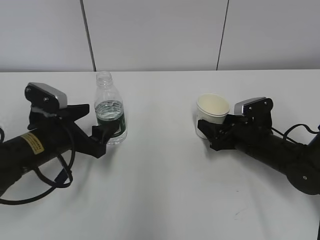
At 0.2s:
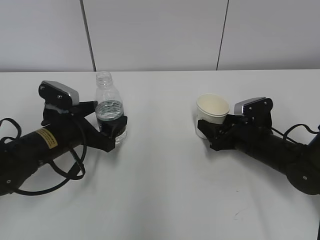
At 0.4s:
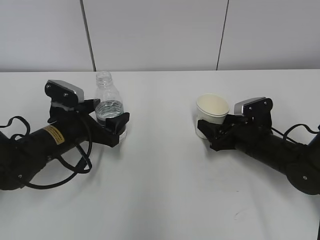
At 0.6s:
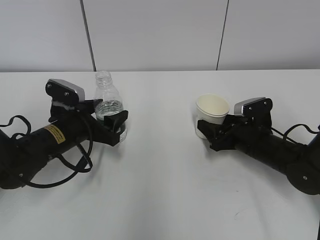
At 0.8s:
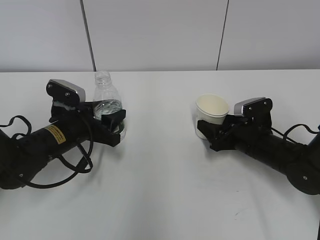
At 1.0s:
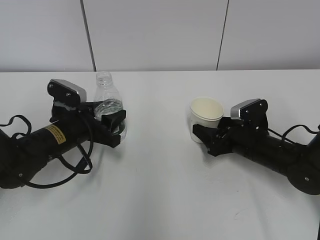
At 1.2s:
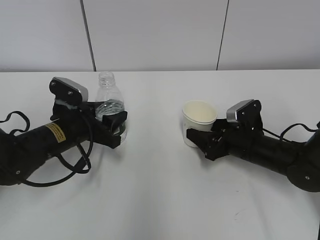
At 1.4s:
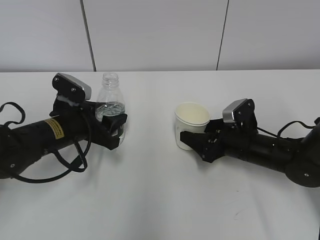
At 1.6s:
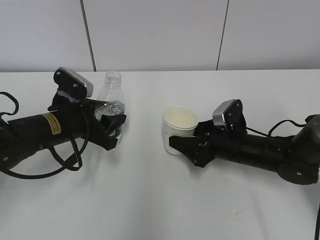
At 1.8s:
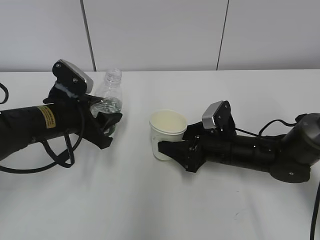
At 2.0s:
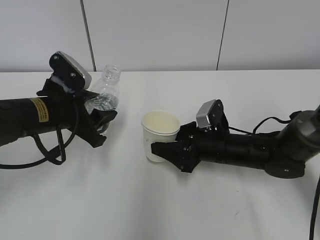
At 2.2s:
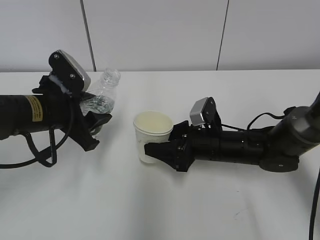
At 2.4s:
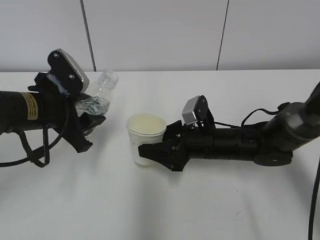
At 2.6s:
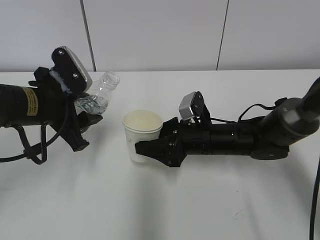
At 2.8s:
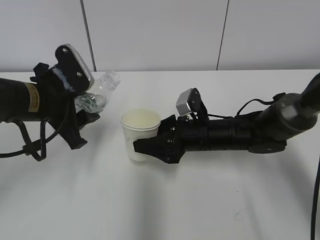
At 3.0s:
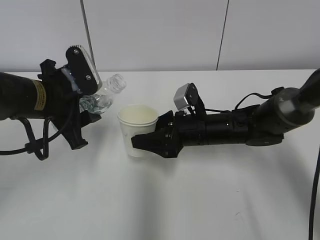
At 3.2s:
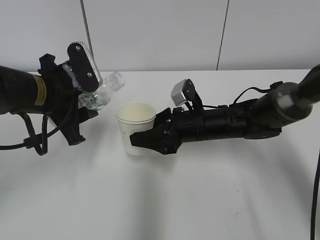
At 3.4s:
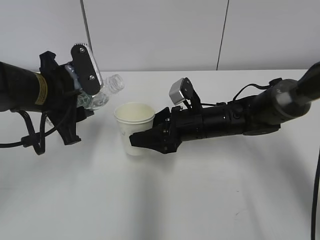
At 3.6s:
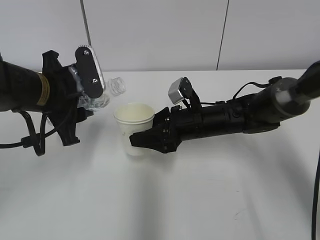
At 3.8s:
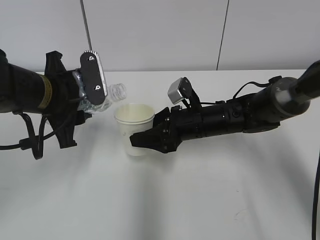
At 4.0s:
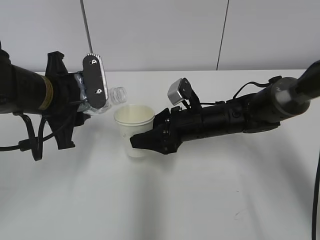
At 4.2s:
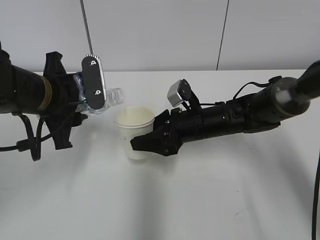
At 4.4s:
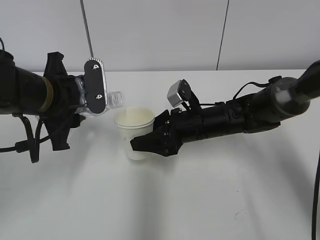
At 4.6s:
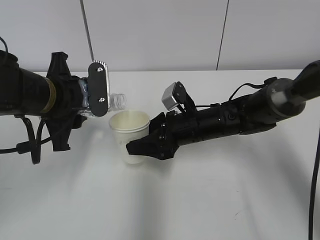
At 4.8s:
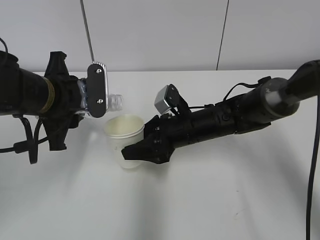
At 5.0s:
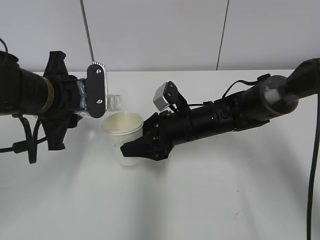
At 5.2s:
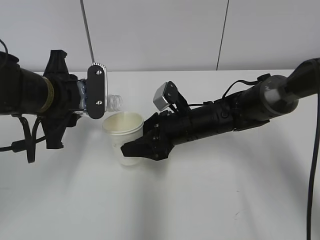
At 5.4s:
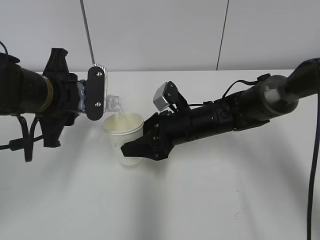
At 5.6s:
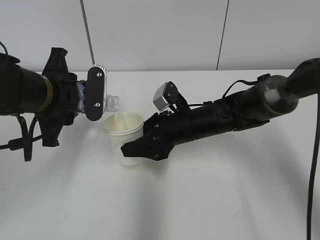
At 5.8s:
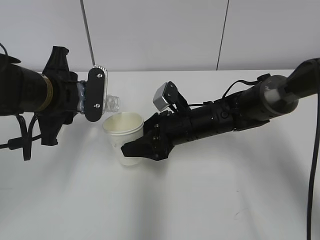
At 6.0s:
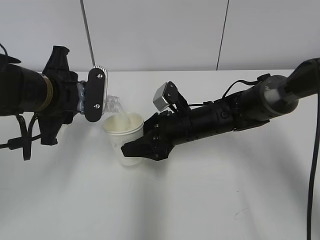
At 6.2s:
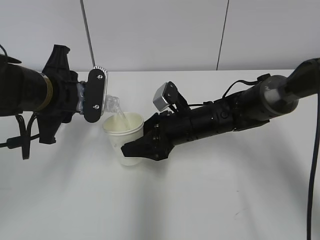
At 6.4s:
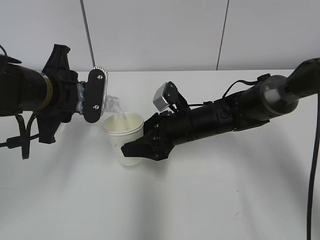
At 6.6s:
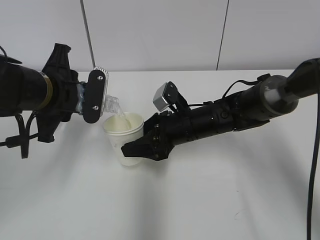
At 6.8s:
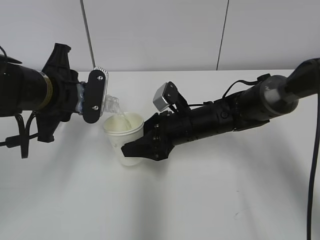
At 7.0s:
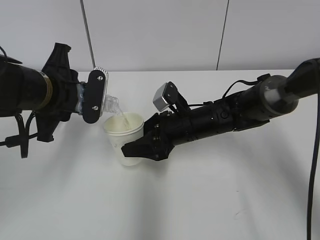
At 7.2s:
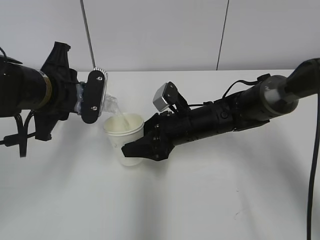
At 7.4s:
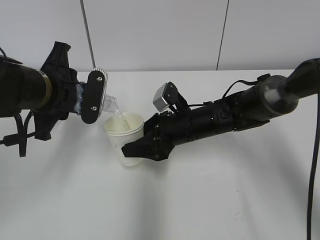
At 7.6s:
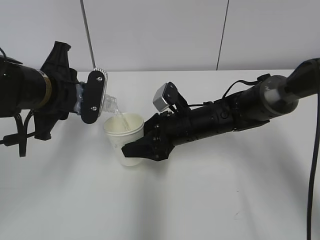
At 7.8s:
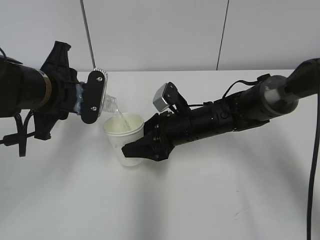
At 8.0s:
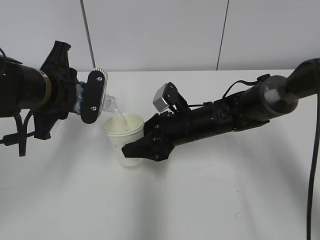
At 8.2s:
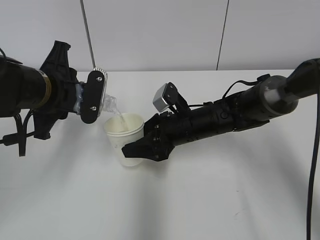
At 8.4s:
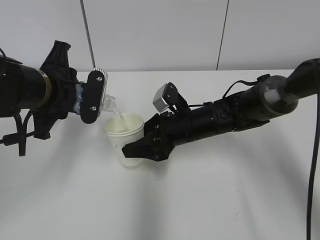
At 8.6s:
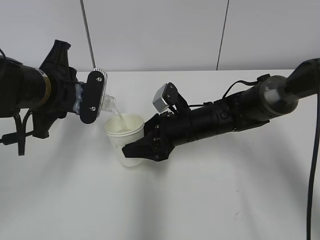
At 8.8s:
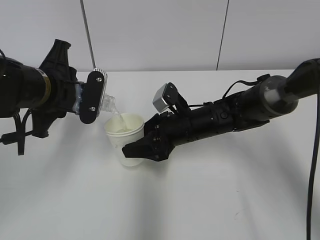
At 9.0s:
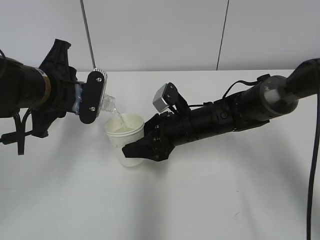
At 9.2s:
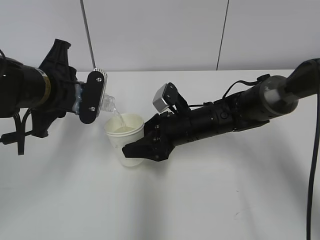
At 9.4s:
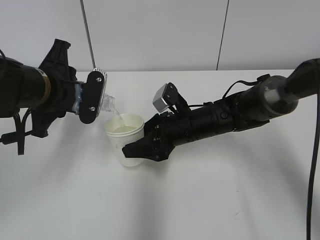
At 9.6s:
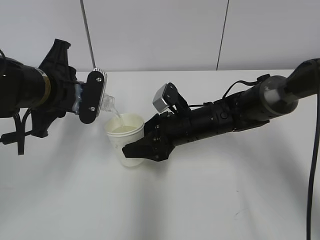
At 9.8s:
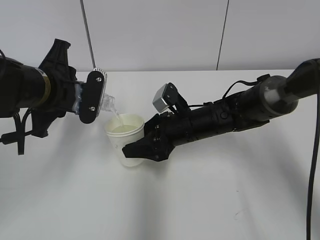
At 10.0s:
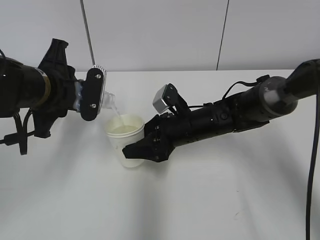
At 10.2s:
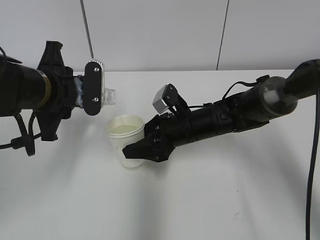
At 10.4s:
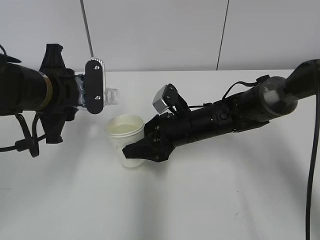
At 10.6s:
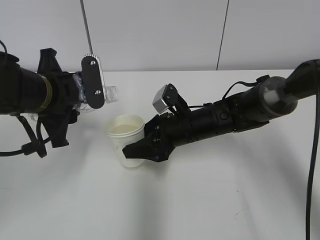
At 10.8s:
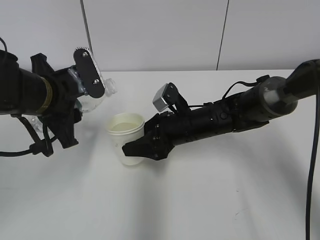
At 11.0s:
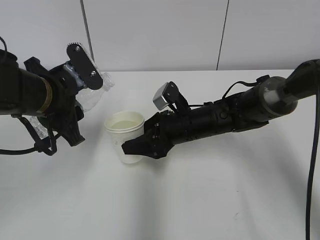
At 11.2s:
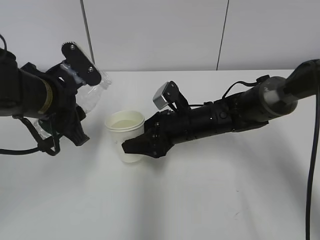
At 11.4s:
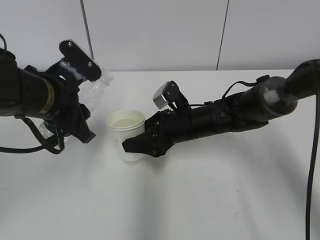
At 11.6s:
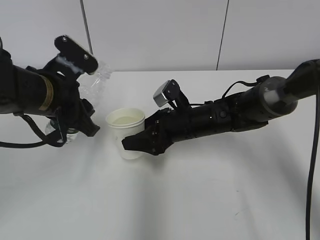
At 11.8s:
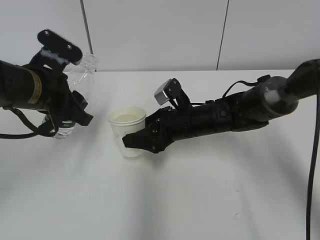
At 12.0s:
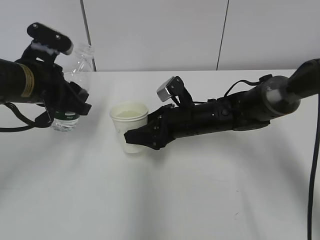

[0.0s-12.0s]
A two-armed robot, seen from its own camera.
Step, 0.0s to 2.6s: Lift the paper cup with the right hand.
Step, 2.8s to 7.0s: Fill water with the right hand.
Step, 2.8s to 7.0s: Pour water with the left hand.
0.0s to 1.6s: The left gripper closes.
1.6s to 3.0s: The left gripper goes approximately 5 cm upward. Meanwhile the right gripper shifts approximately 5 cm to the left.
4.4s to 6.0s: There are only small adjustments of the grippers.
6.0s to 7.6s: There are only small adjustments of the grippers.
7.6s to 9.0s: Both grippers stay about where they are.
9.0s to 10.4s: The grippers move only a little.

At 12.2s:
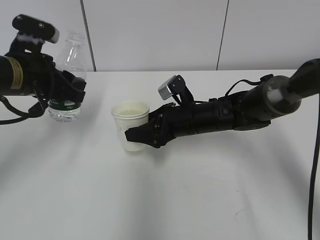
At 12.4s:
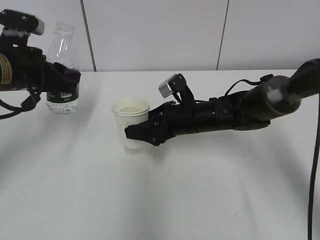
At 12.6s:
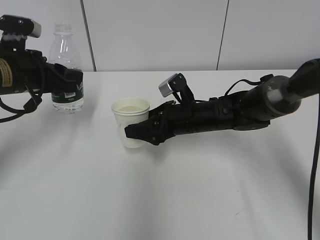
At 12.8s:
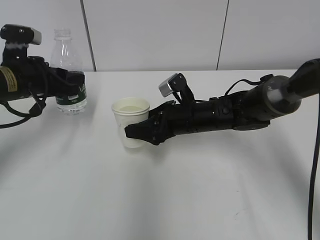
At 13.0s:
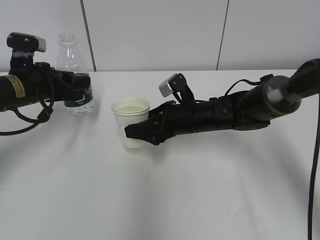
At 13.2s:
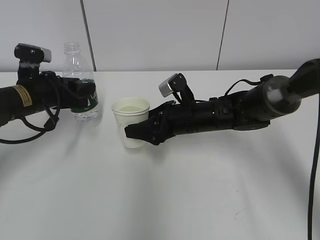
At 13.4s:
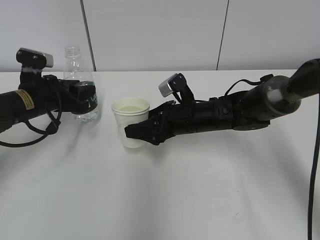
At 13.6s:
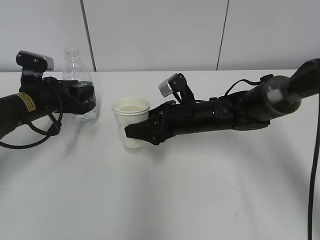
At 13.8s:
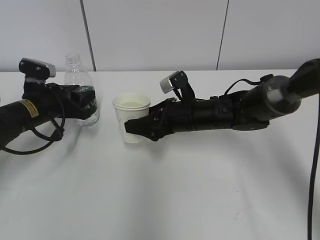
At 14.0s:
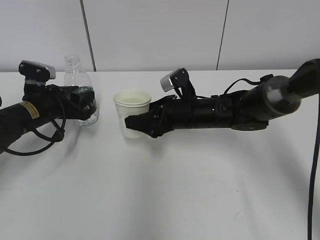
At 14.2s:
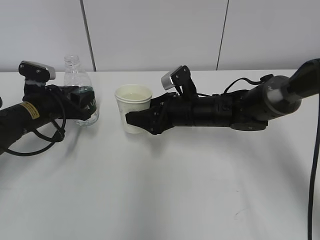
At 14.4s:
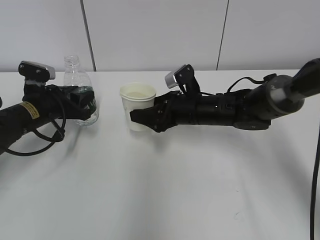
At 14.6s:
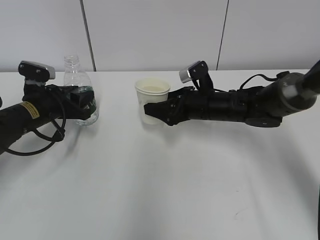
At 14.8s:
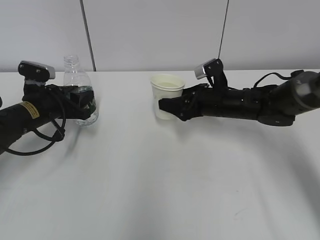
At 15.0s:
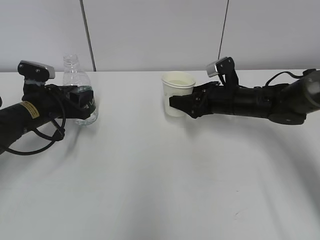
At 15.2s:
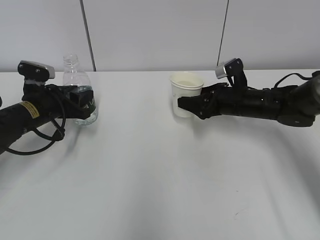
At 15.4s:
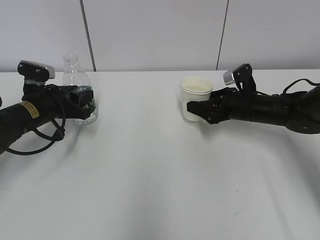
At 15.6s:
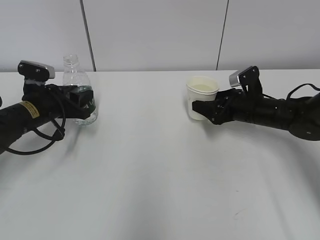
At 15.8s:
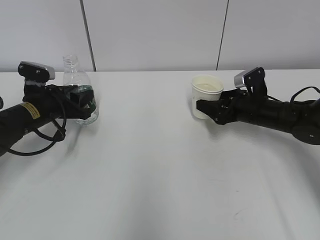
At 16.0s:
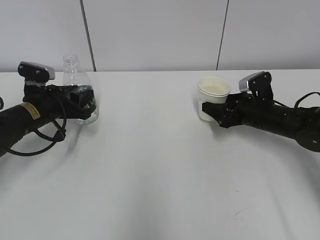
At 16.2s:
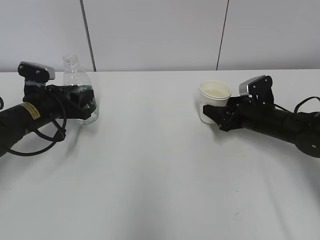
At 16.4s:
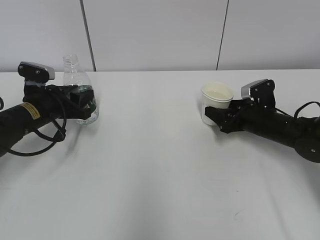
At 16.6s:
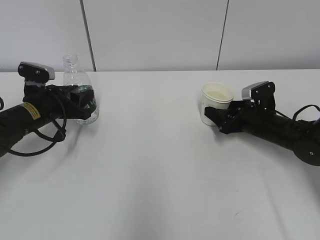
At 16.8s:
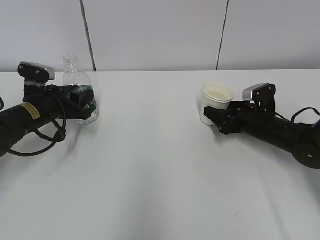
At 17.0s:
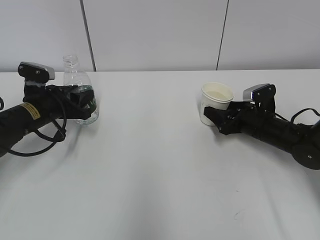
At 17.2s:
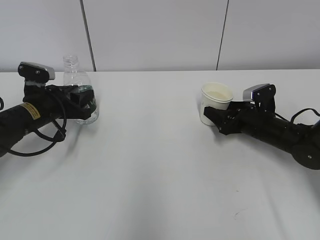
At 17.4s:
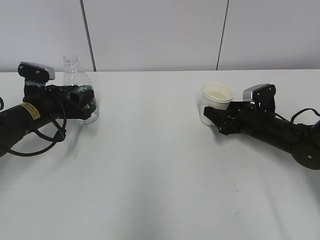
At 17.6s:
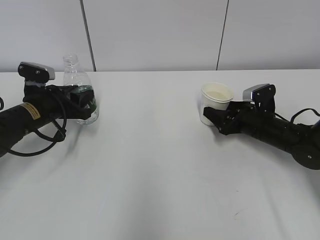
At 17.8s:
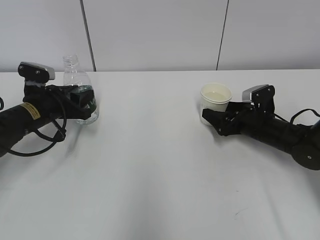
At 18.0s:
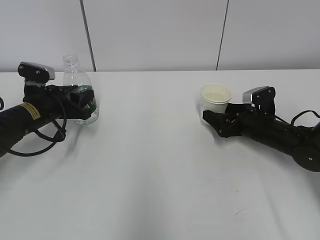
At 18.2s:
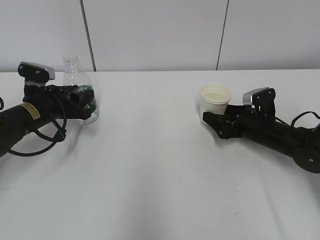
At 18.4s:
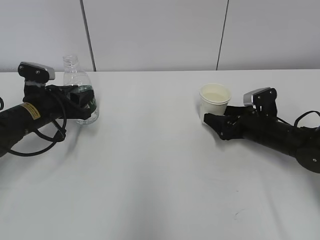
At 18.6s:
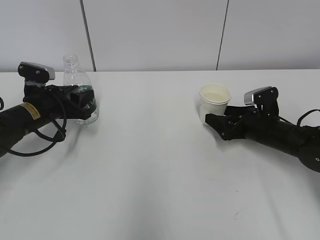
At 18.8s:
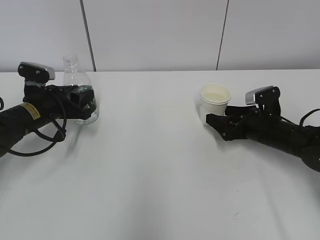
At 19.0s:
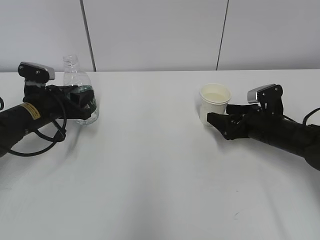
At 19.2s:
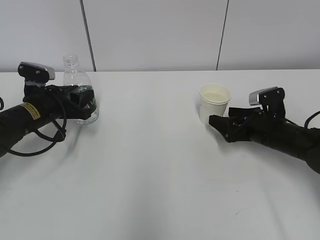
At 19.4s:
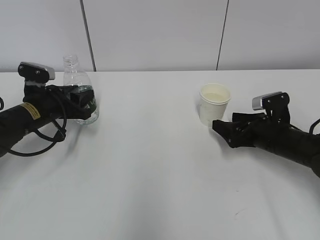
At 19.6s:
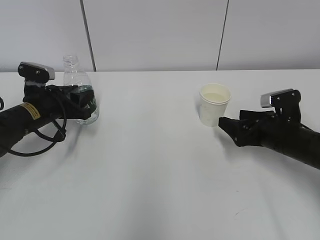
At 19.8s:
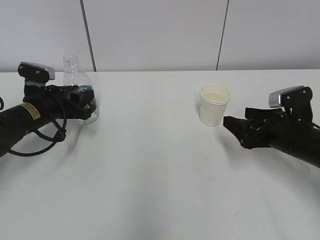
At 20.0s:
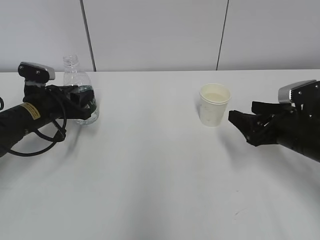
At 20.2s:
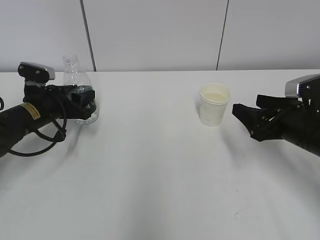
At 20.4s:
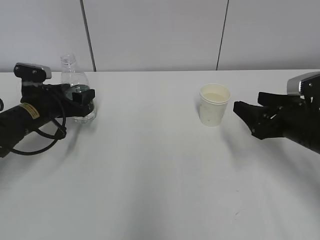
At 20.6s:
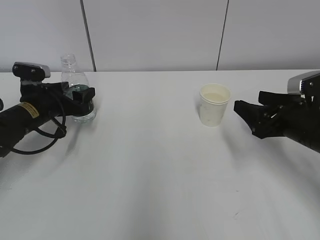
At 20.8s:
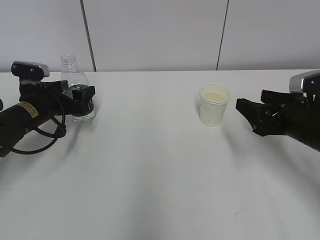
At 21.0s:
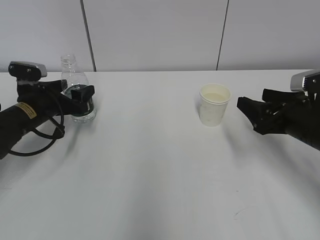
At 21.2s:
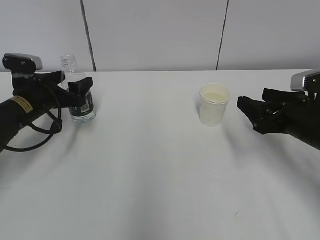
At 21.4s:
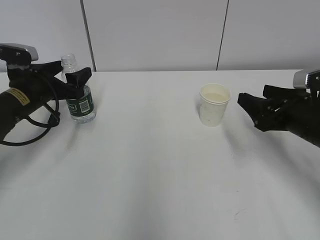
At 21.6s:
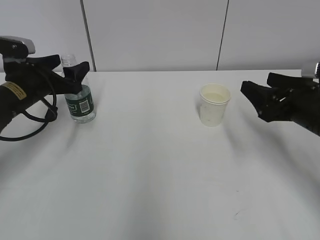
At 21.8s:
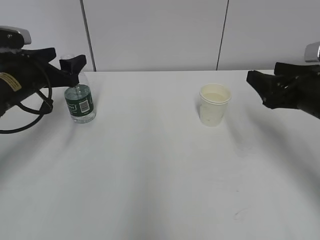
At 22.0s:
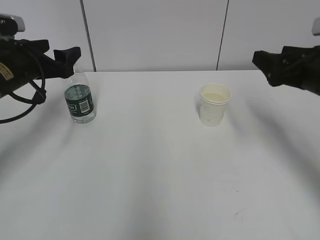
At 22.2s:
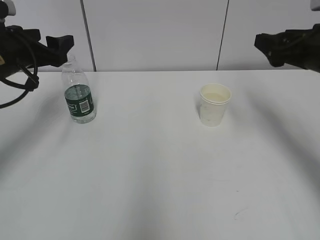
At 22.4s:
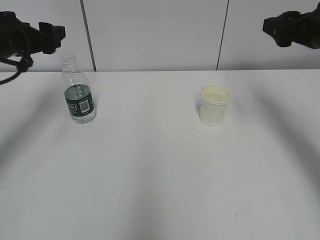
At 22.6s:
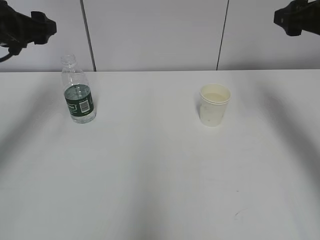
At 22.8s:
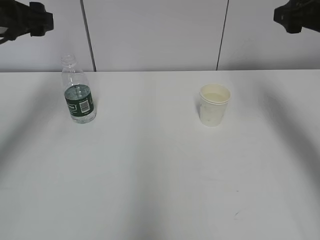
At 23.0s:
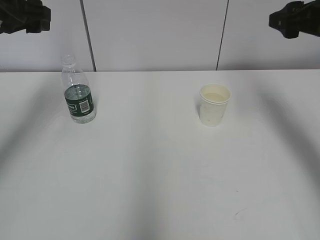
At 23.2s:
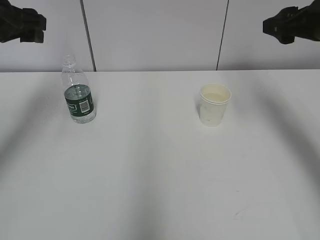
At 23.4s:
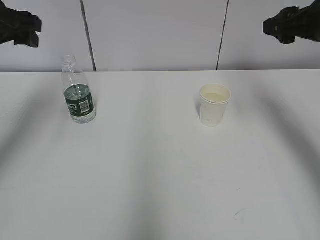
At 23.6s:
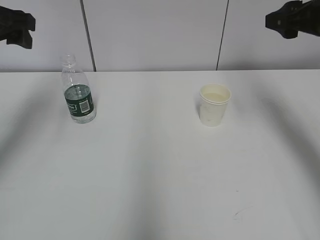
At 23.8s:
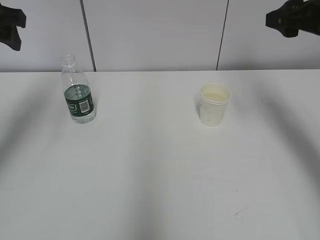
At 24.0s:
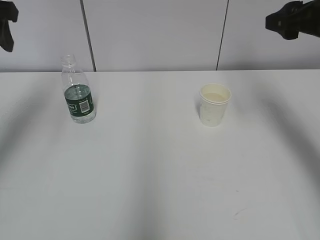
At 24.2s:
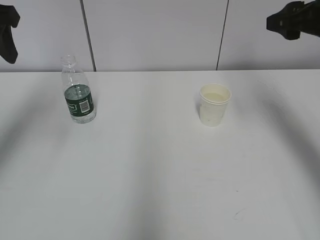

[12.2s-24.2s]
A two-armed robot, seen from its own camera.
12.2s to 13.8s: The left gripper travels downward by some 10 cm.
13.8s to 15.2s: The right gripper heads to the right, covering about 10 cm.
15.2s to 16.6s: The right gripper changes place by approximately 5 cm.
16.6s to 18.2s: The right gripper opens its fingers.
18.2s to 19.8s: The right gripper moves backward and upward, approximately 10 cm.
19.8s to 21.2s: The left gripper opens its fingers.
21.2s to 22.6s: The left gripper is displaced upward by approximately 15 cm. The right gripper travels upward and forward by approximately 15 cm.
22.6s to 24.2s: The left gripper travels upward and backward by approximately 10 cm.
